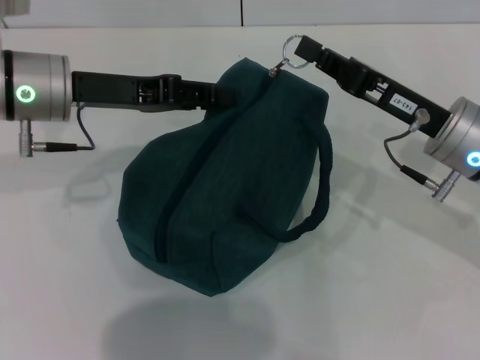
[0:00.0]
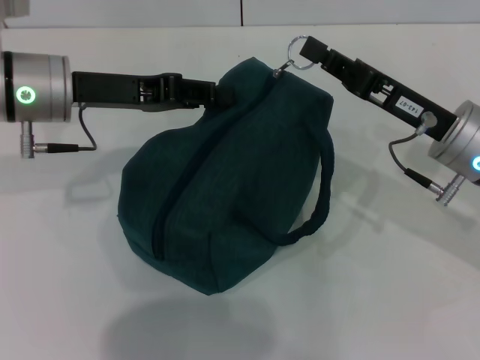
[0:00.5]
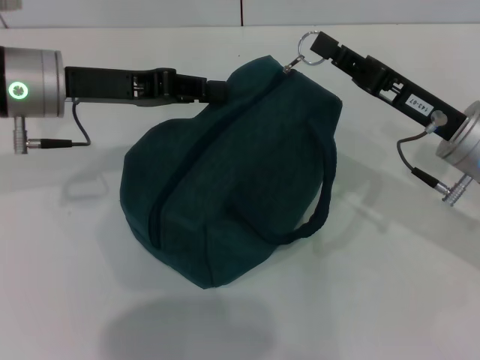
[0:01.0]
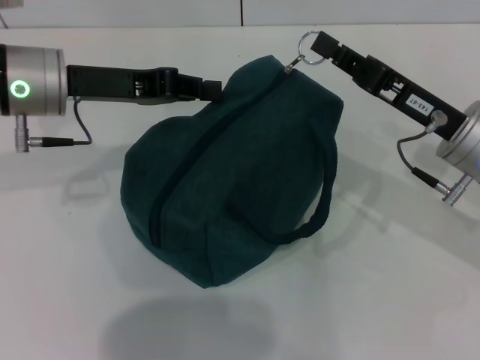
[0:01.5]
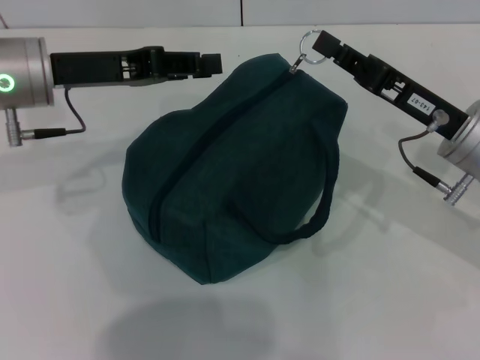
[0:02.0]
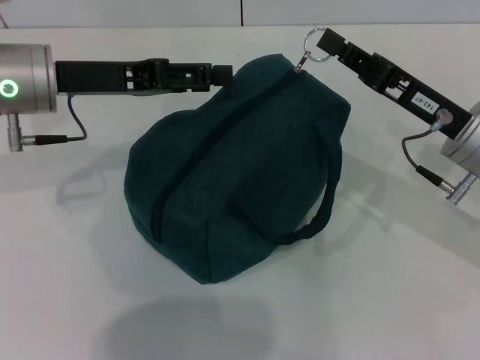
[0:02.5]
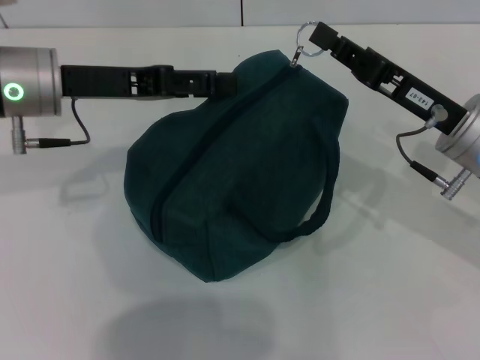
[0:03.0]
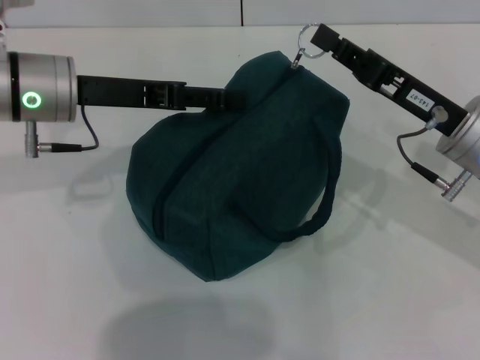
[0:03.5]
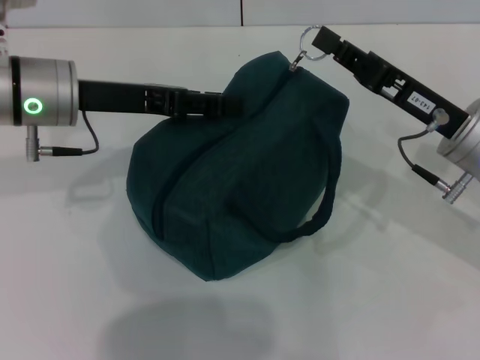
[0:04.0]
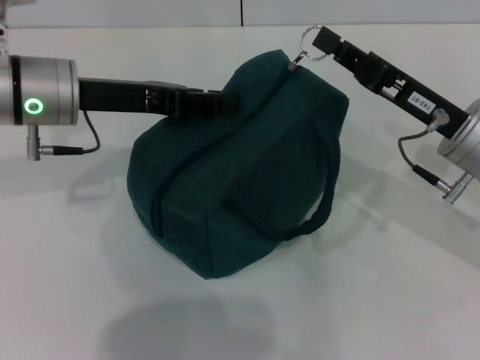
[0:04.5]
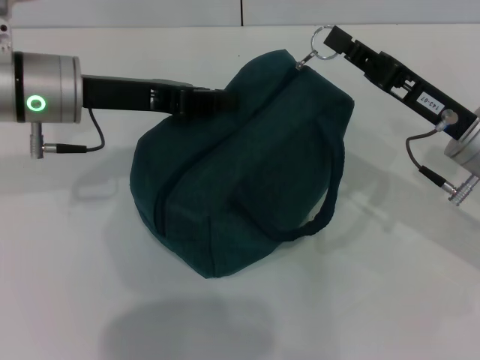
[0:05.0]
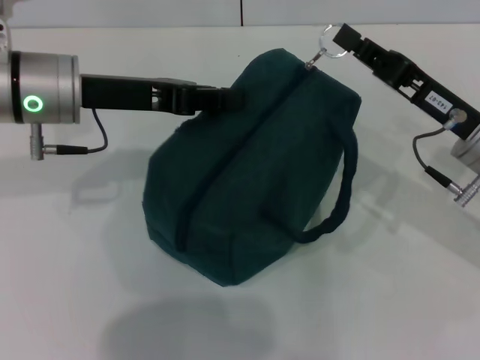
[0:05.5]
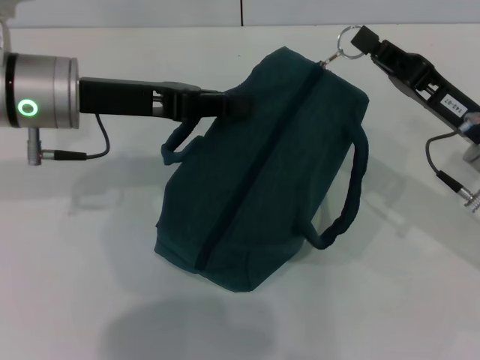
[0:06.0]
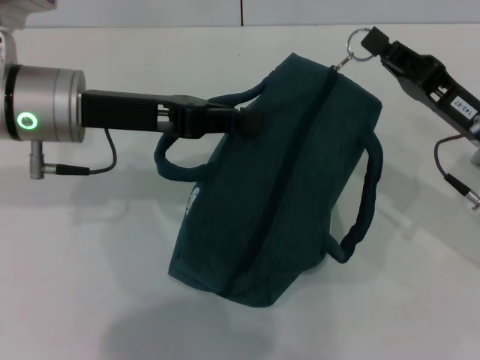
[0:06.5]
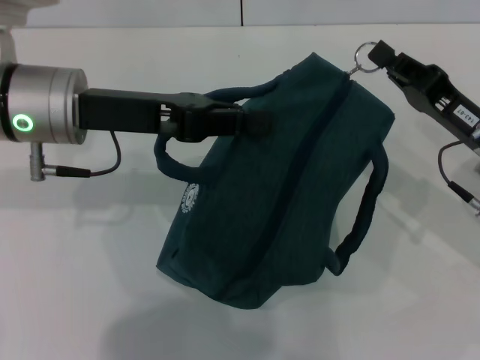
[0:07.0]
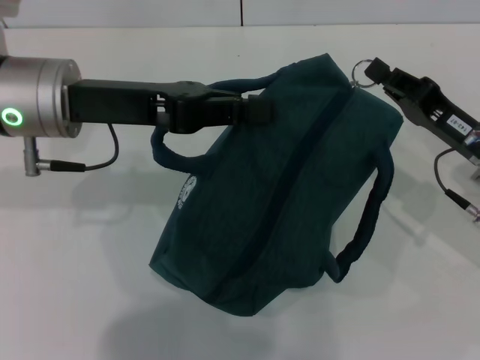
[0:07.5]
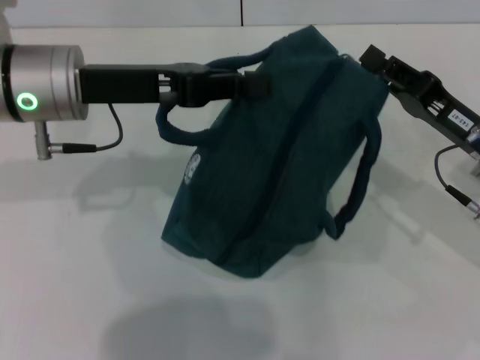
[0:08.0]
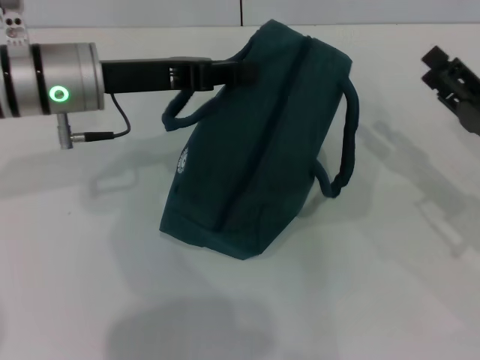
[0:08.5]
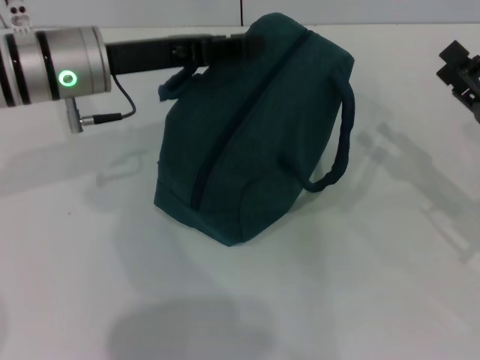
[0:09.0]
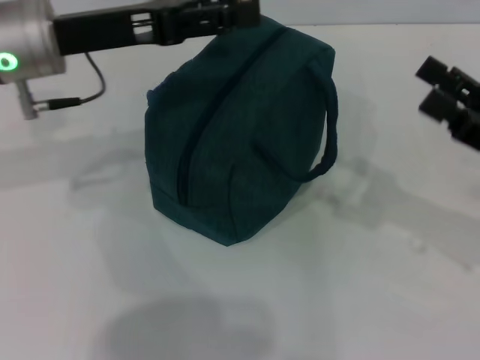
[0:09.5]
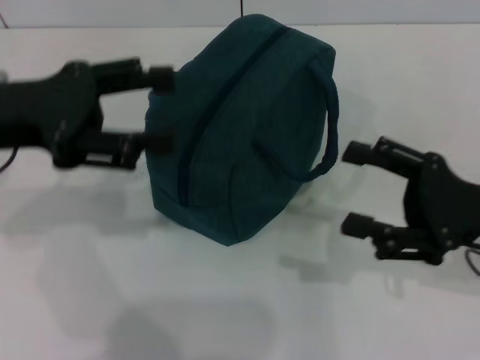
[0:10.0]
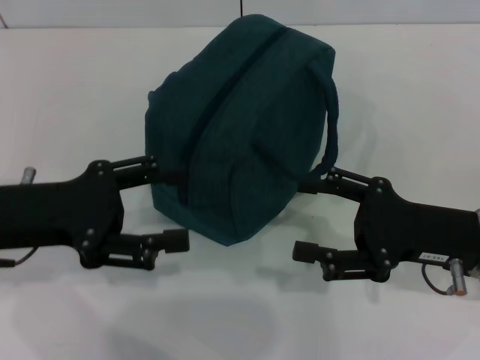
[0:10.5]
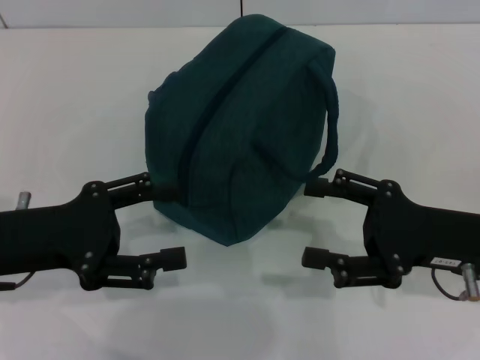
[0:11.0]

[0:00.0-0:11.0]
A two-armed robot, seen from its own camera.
Step, 0:00.0 to 0:08.0: Zip up the lunch bag with your right hand.
Step, 0:08.5 to 0:09.0: Hold the lunch bag with your left hand.
0:00.0 to 0:02.0: The left gripper closes.
0:02.0 to 0:03.5: The left gripper opens.
0:03.5 to 0:05.5: The left gripper closes.
0:07.5 to 0:09.0: The left gripper shifts by roughly 5 cm. Meanwhile the right gripper ends up about 5 cm from where it was, and opens up.
0:09.0 to 0:11.0: The right gripper moves to the left, approximately 5 cm. Meanwhile the left gripper is displaced backward and to the left by roughly 15 cm, and opens.
